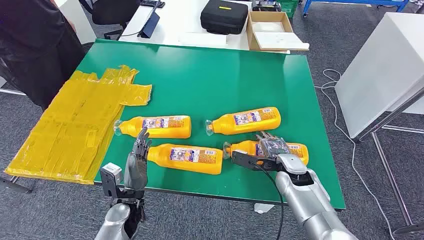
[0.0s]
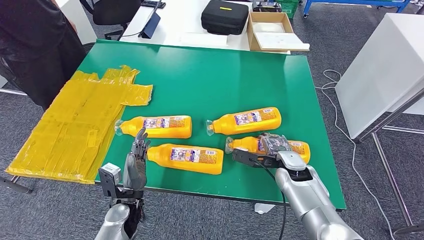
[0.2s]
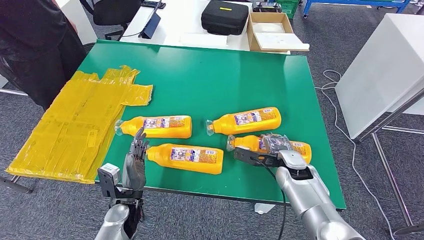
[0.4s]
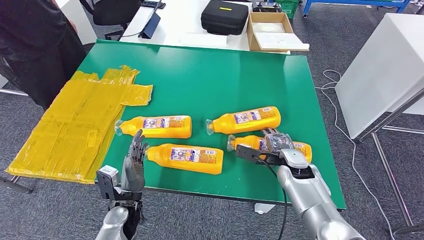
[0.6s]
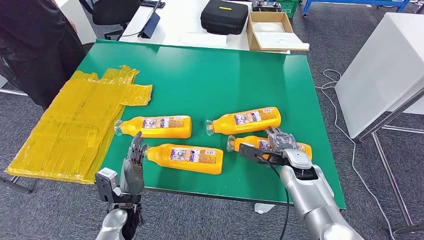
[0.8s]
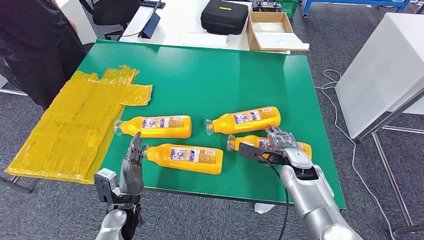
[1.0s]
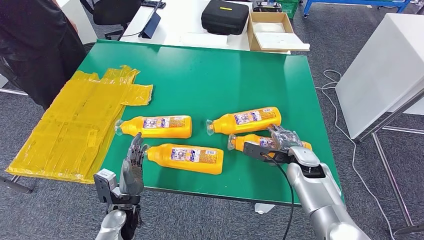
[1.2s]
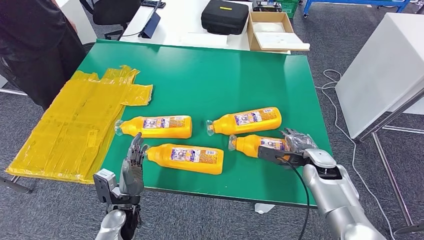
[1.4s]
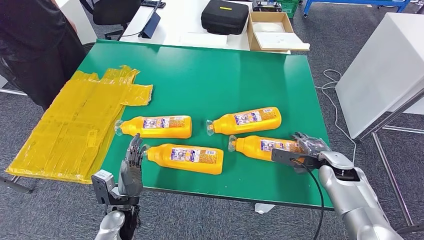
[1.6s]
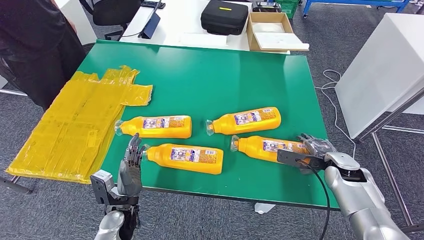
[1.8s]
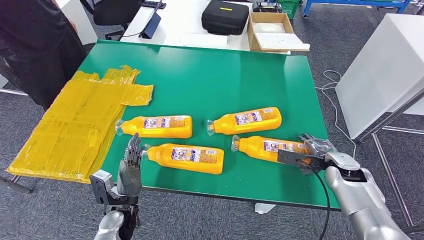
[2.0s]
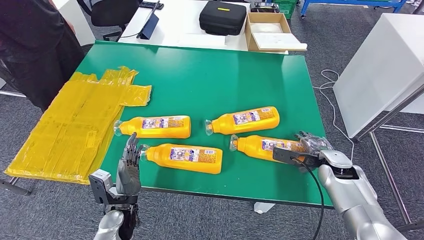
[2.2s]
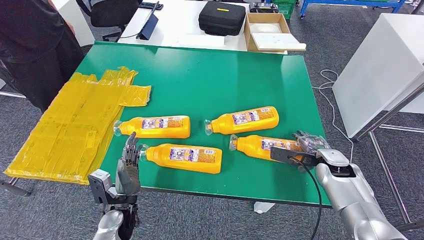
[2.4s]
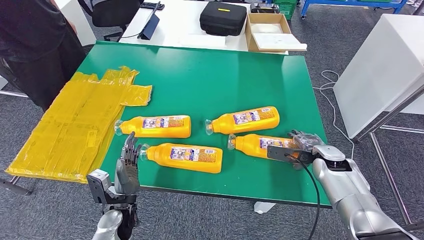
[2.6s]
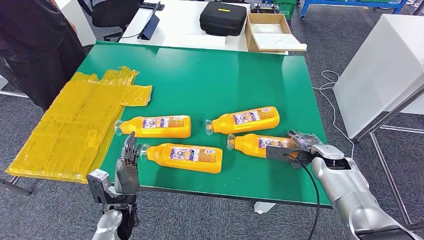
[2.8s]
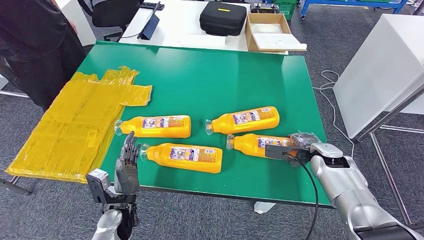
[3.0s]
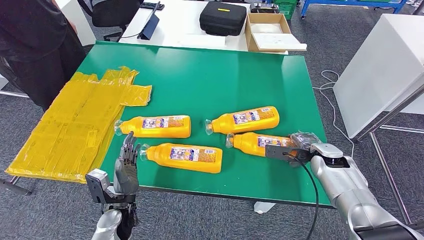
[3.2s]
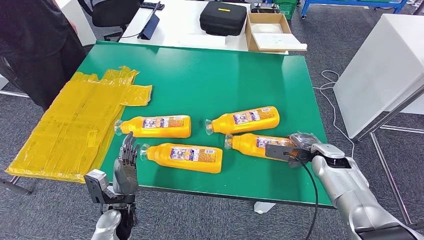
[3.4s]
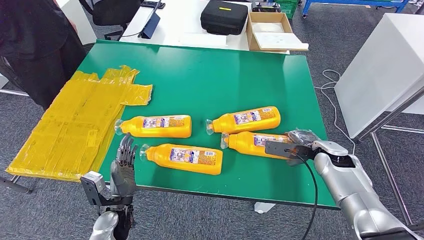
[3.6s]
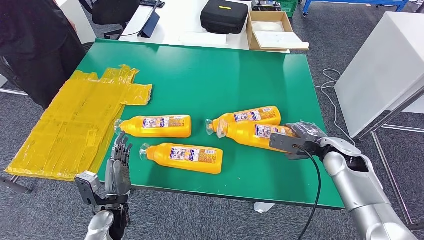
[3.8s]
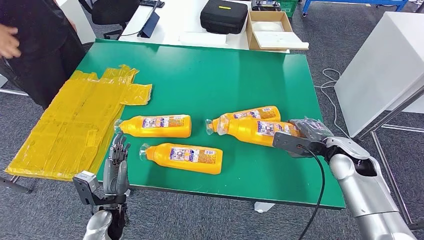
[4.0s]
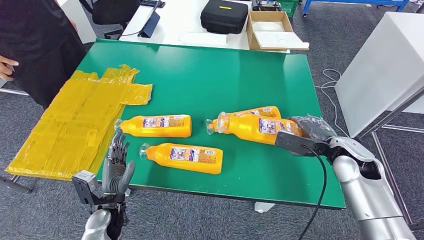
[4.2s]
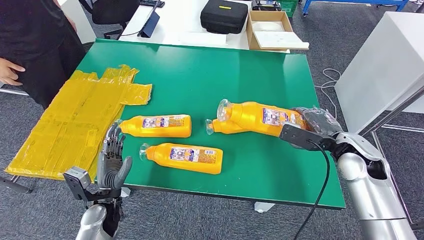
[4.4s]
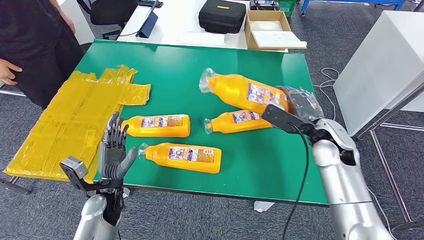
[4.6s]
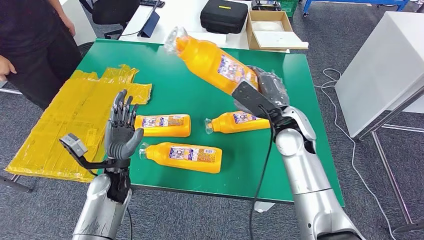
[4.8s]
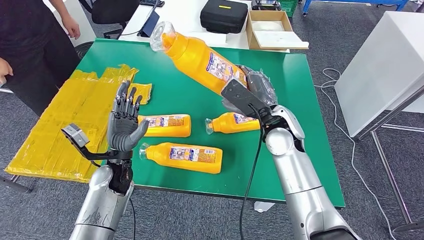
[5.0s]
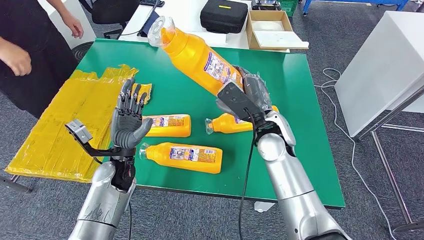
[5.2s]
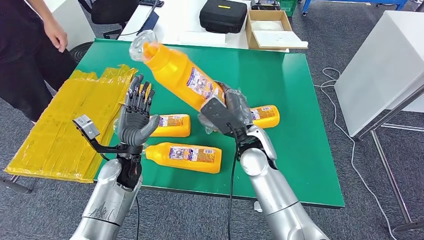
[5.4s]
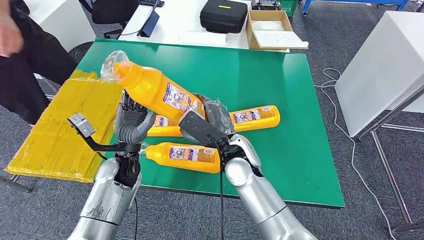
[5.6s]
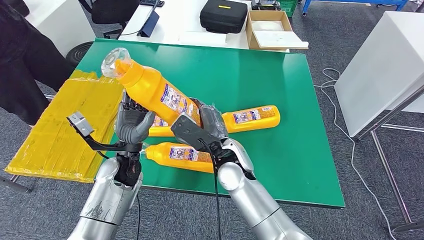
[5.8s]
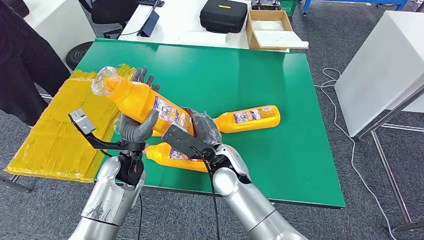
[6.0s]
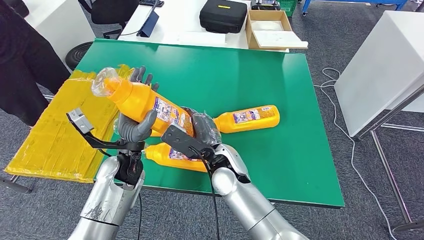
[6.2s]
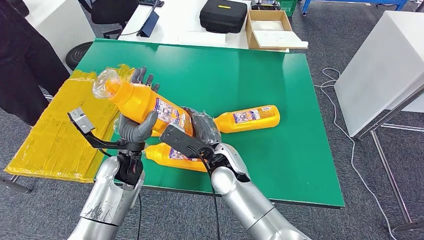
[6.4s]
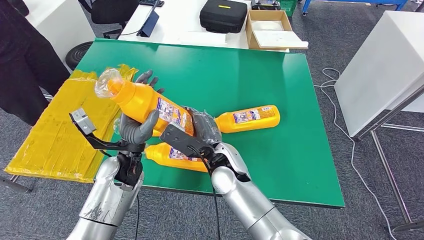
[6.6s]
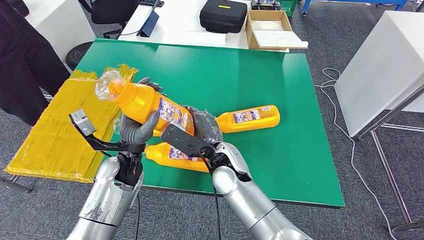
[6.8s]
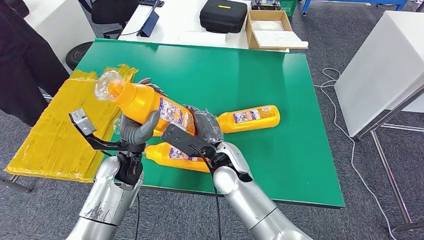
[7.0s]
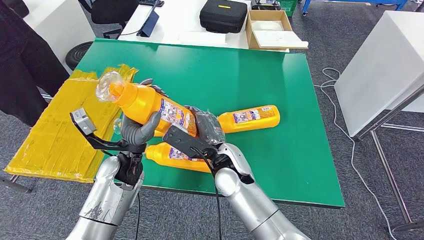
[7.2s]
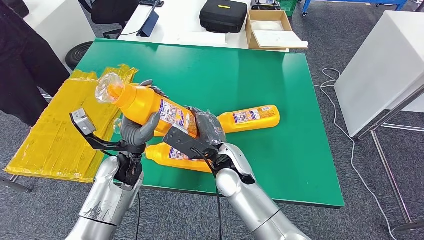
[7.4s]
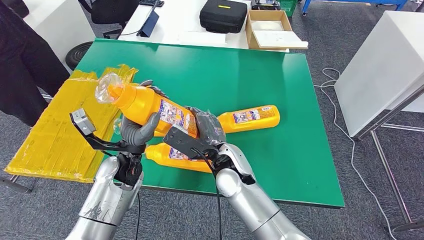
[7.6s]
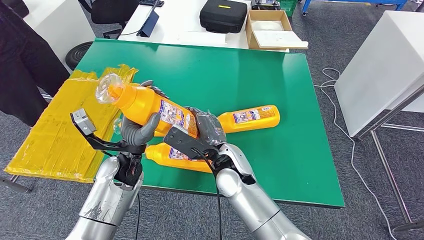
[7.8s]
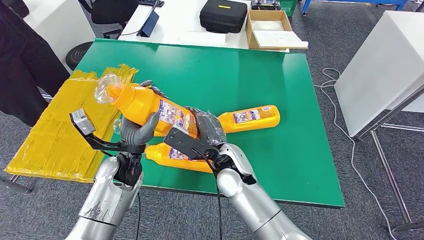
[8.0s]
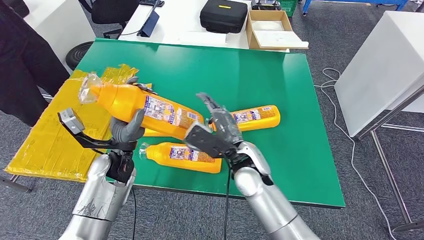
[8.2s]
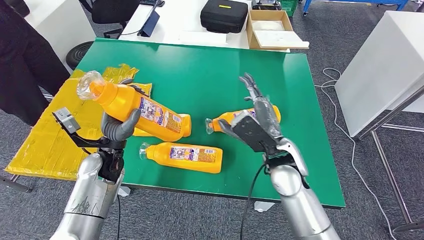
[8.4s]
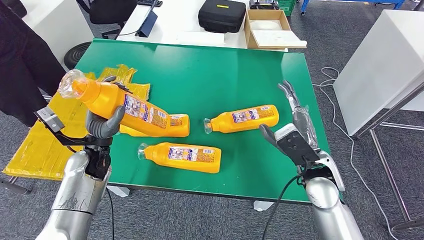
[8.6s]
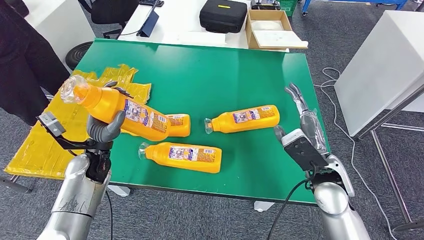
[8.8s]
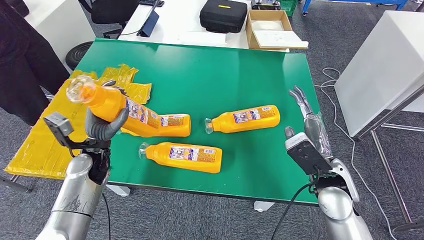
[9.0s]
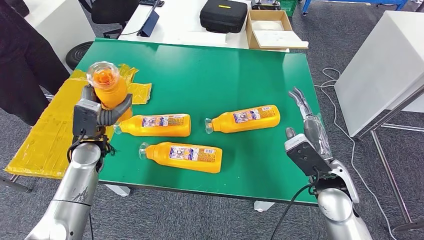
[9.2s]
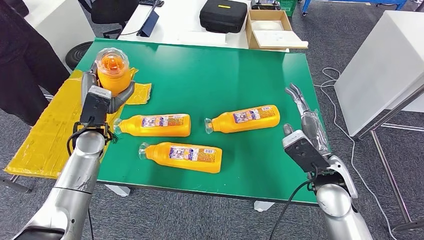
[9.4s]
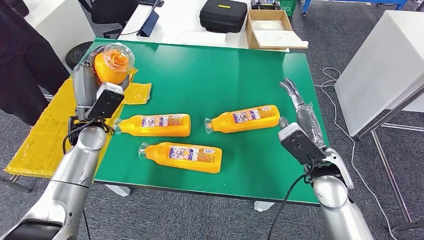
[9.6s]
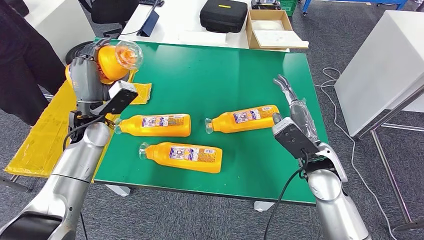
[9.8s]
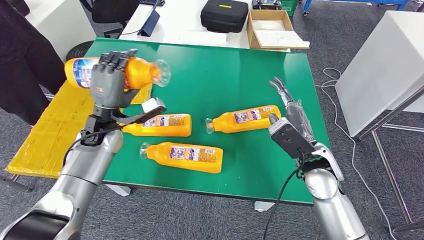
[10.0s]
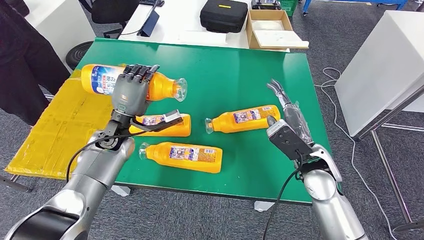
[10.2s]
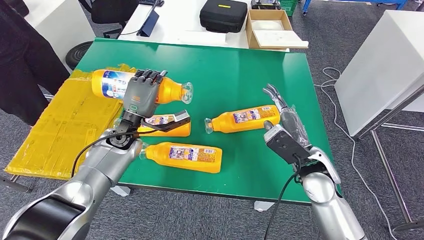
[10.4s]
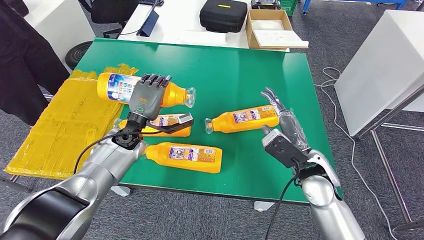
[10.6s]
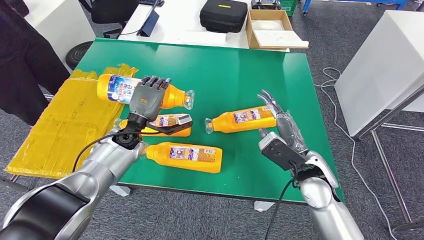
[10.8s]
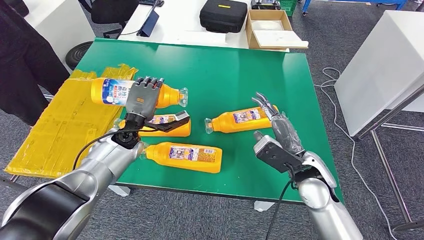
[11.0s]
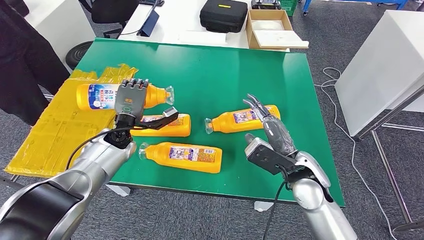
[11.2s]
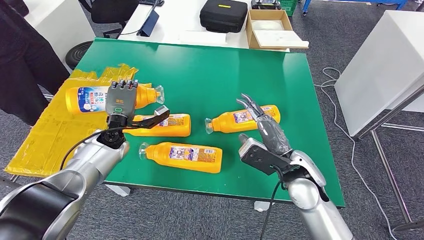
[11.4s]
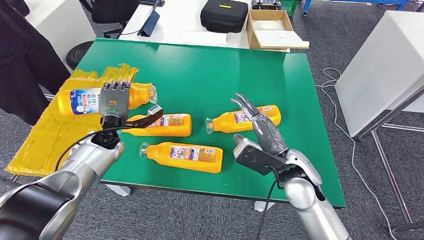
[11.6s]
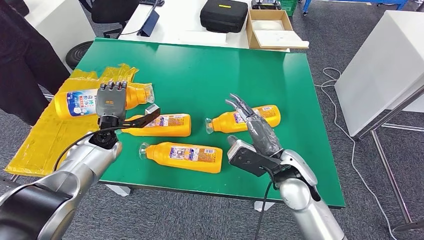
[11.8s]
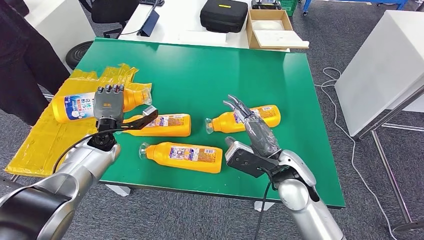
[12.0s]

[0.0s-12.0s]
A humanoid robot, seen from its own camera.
Step, 0.0s to 6.2s: Take the fast-moving consumer goods bottle from the table.
1.6s to 3.0s: There are only small adjustments of the hands.
6.0s to 7.6s: The hands stay close to where they were, moving slightly.
9.0s to 10.4s: The left hand moves to the right and forward, about 10 cm.

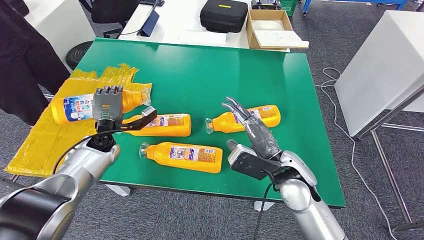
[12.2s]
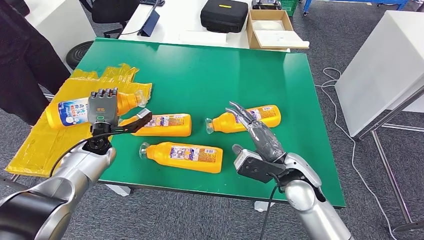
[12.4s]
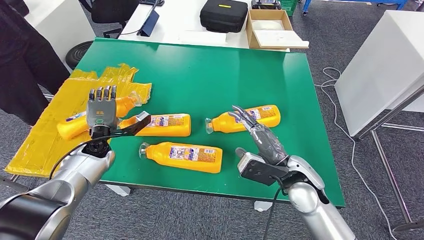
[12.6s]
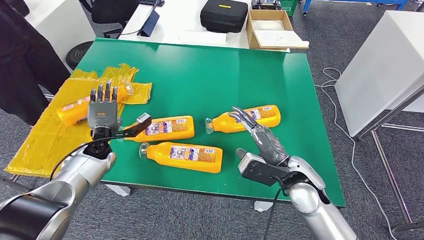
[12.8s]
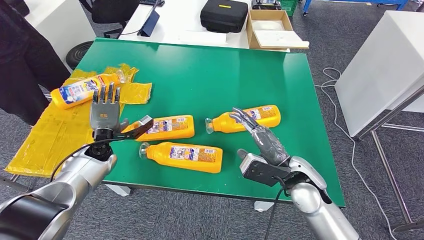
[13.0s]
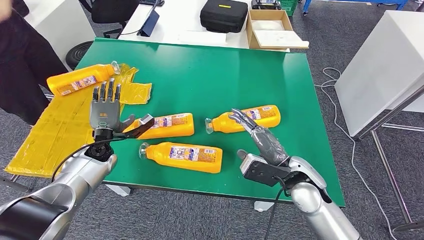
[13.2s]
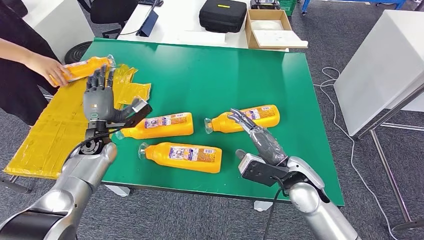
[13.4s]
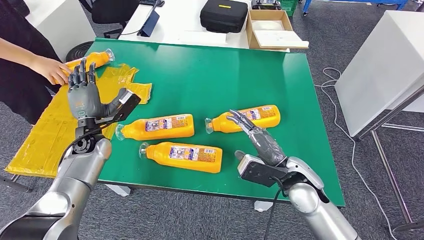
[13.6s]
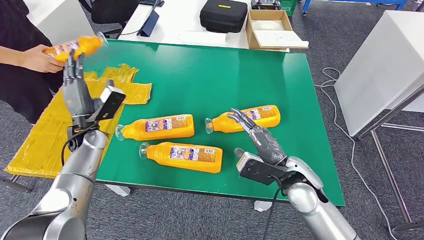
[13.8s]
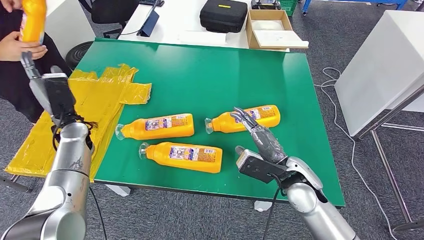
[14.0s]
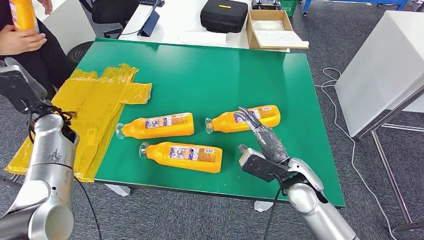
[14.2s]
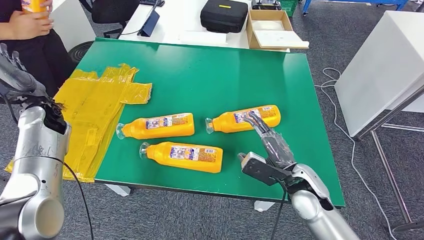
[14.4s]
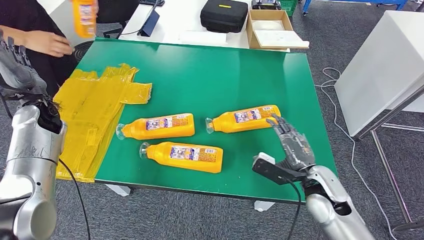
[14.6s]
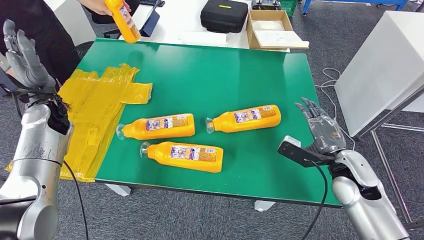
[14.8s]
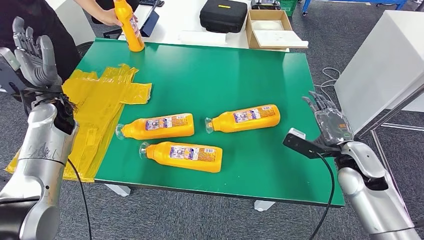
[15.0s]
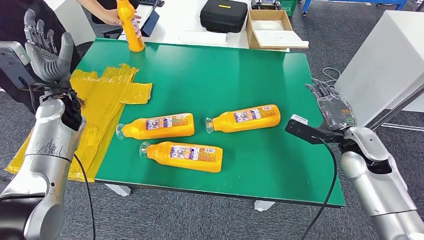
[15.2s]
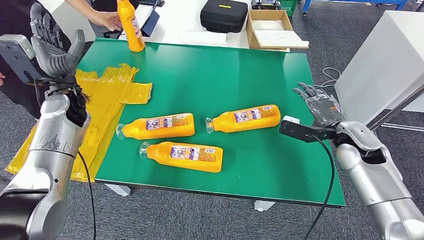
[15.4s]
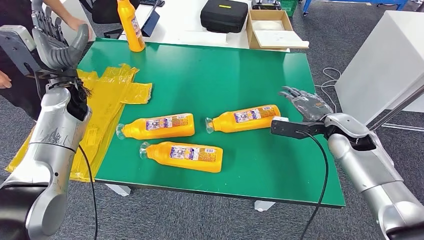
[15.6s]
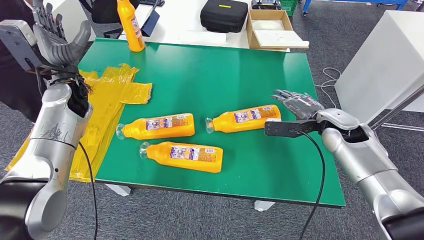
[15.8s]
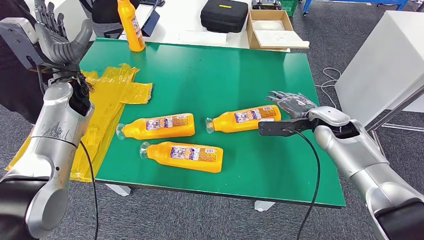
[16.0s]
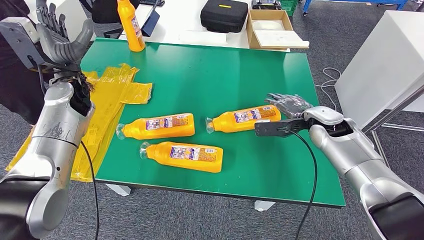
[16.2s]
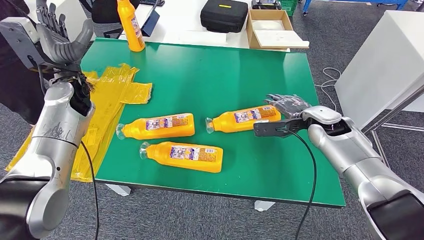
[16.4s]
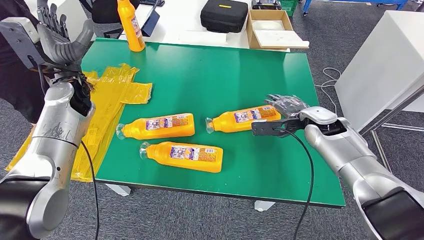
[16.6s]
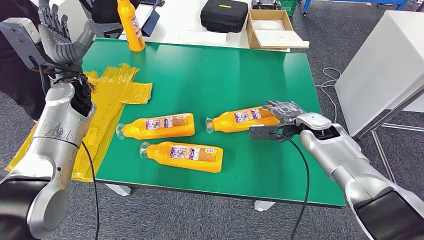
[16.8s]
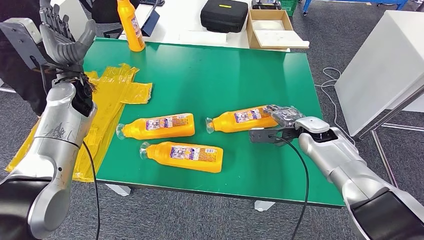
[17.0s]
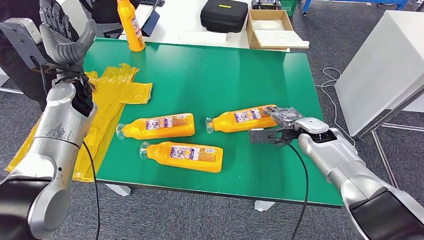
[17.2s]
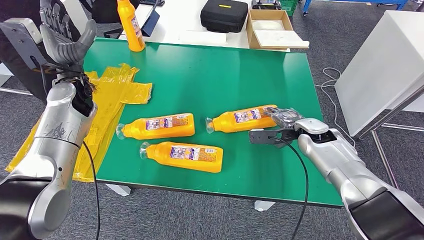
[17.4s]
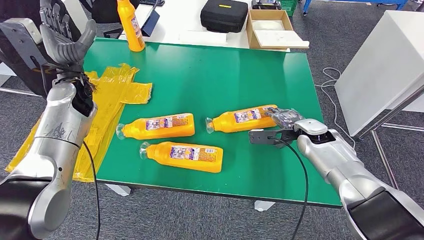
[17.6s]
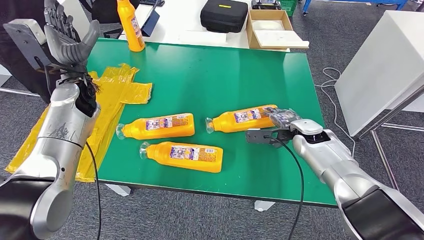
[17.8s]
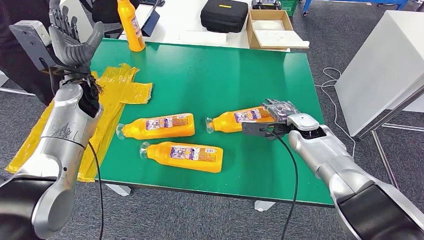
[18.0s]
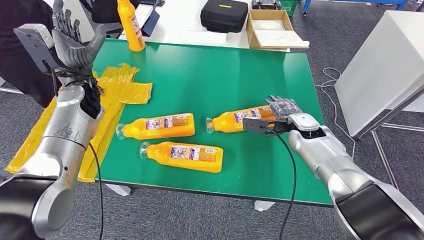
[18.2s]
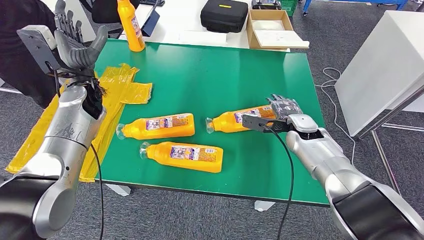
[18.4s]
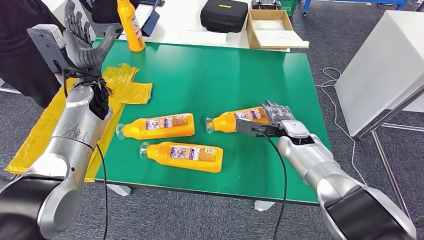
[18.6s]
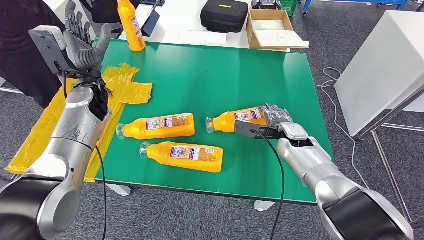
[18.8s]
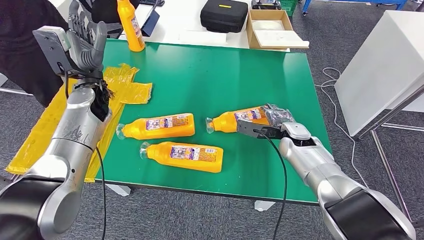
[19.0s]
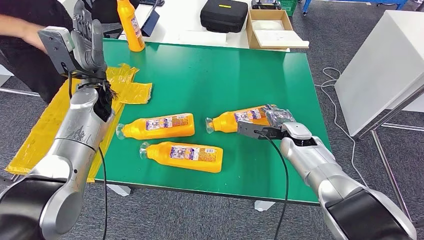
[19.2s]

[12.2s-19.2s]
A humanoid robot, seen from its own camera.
Step, 12.2s to 14.4s: Flip the fast-moving consumer goods bottle to the front side.
16.4s to 17.8s: The right hand changes place by roughly 5 cm.
